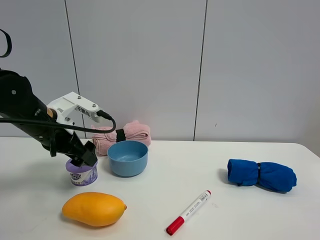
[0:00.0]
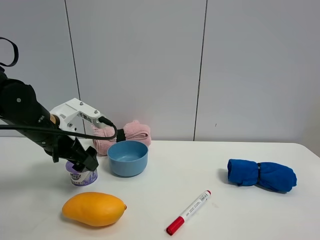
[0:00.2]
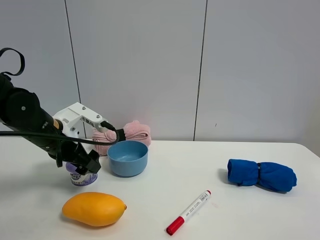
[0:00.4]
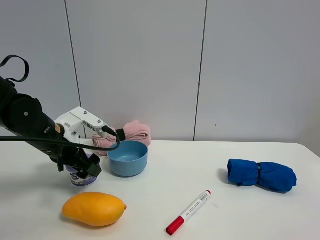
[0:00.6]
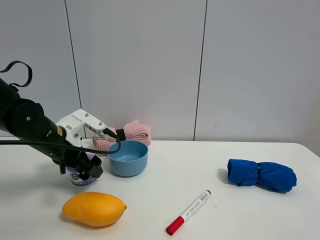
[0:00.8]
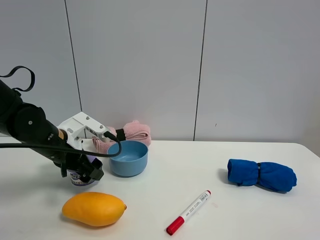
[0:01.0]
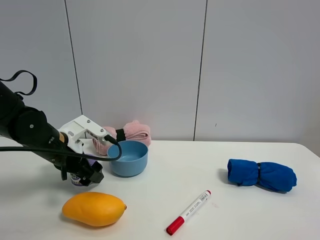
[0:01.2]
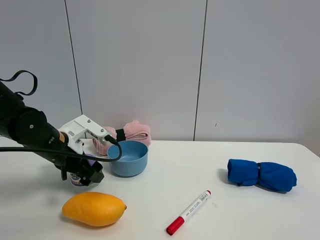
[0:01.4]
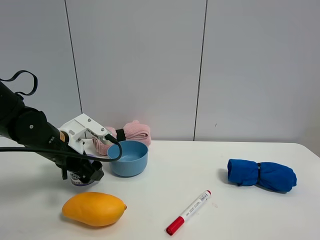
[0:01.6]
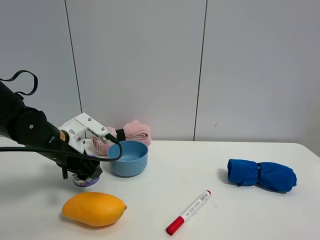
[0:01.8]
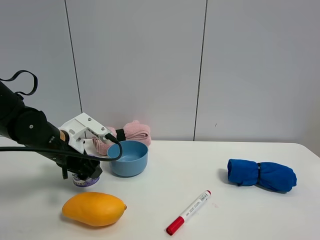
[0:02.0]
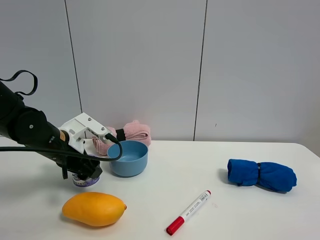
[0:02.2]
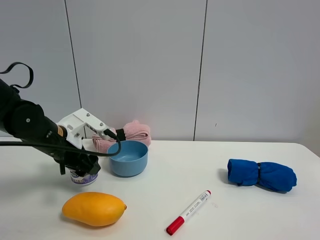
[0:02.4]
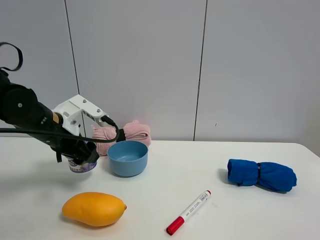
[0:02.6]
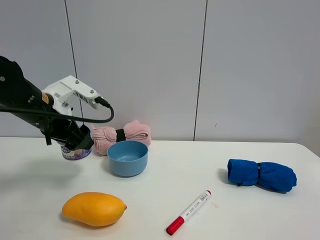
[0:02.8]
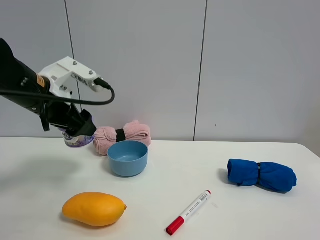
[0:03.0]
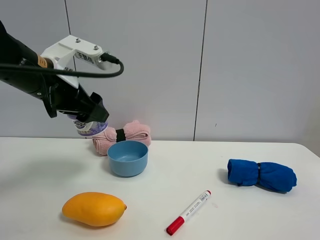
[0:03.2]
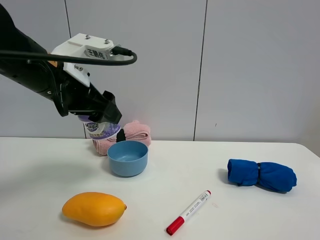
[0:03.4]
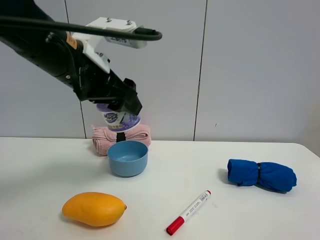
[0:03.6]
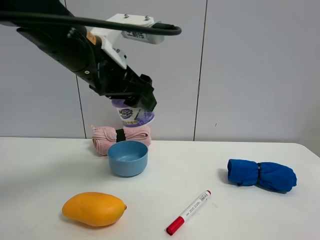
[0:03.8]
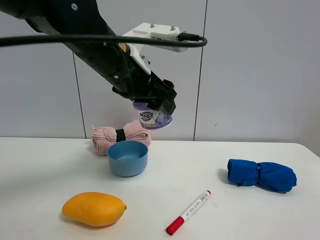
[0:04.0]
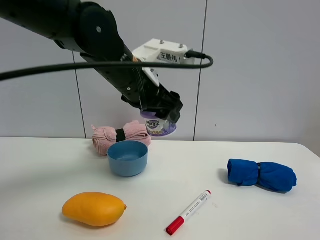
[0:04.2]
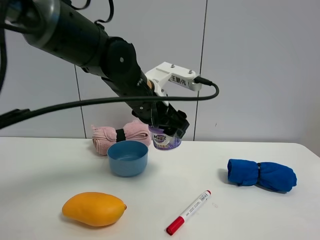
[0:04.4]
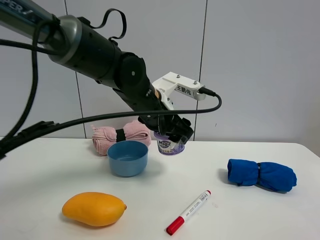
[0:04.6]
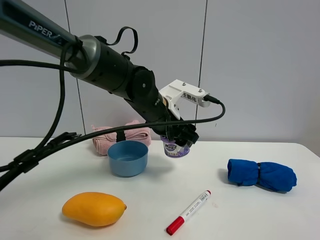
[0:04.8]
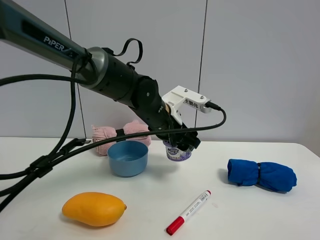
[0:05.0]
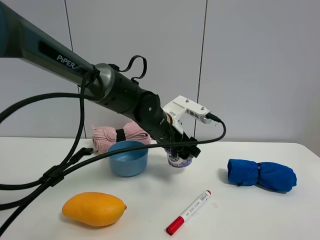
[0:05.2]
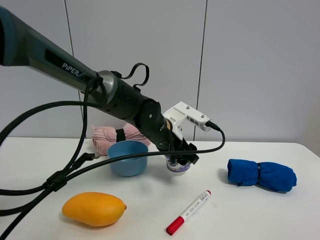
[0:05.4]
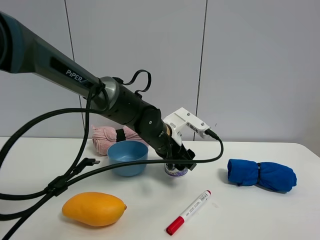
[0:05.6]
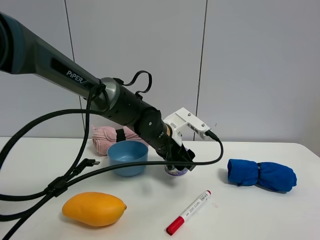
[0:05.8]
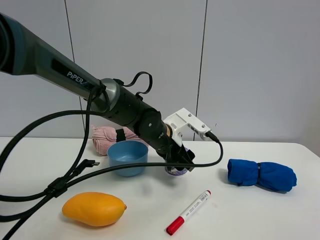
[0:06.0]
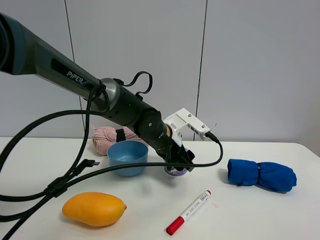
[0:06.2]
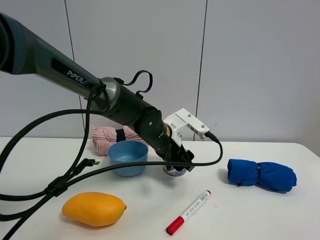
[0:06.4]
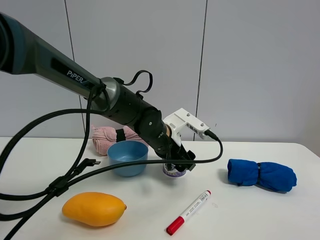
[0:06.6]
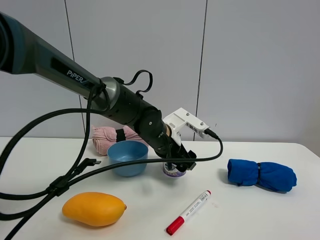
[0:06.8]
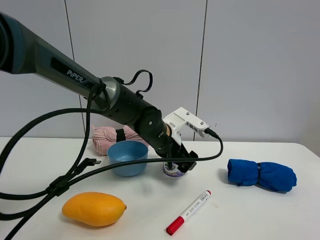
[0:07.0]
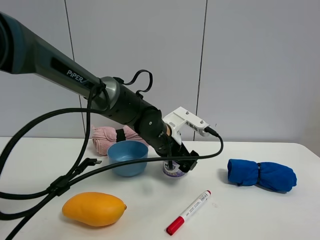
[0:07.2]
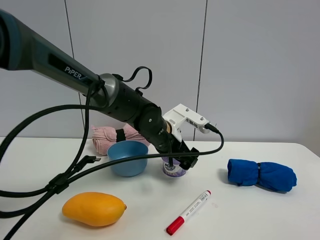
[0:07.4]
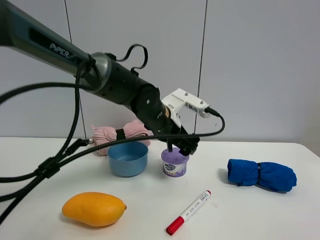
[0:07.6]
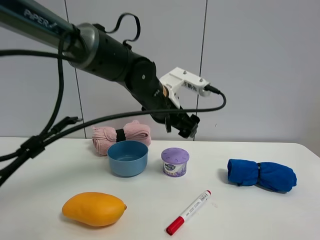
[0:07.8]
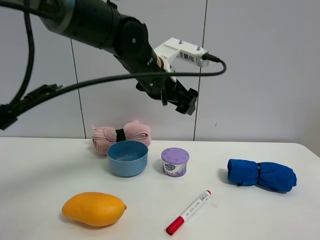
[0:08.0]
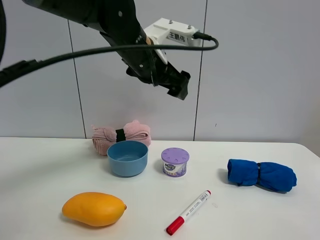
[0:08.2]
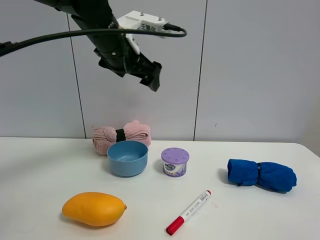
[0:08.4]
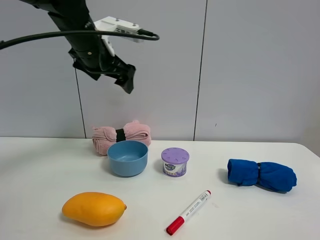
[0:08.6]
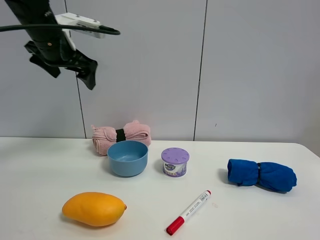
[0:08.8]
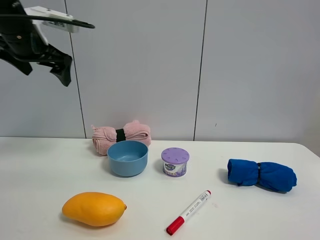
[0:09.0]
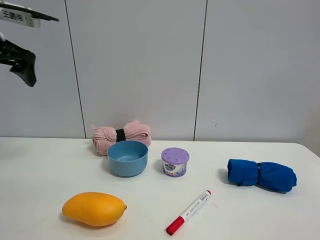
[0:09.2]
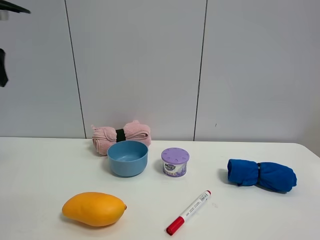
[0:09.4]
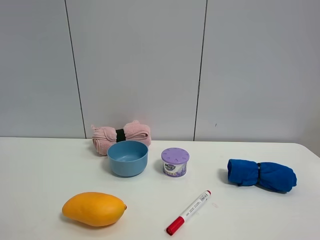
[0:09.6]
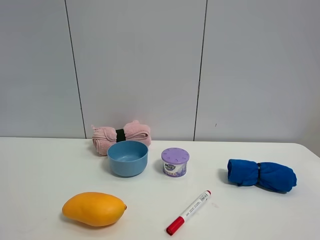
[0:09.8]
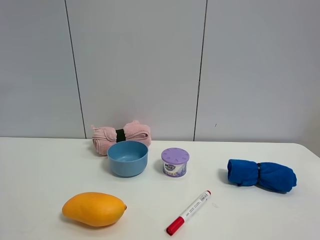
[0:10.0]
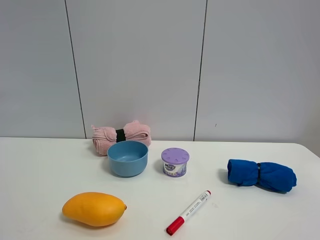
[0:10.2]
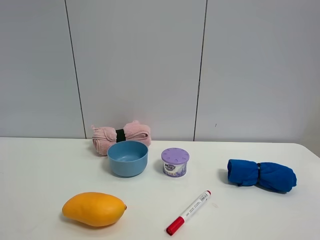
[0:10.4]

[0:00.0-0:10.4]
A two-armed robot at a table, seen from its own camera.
Task of the whole recording: the gripper move the object.
Step, 0:02.0 to 0:07.4: Place the Incense box on the table with the left gripper.
0:00.0 to 0:01.4: The left gripper moves downward, some 5 cm.
0:01.4 to 0:03.0: The left gripper goes approximately 10 cm upward, and closes its fingers.
0:03.0 to 0:04.4: The left gripper is displaced to the right by approximately 15 cm.
0:04.4 to 0:06.0: The left gripper goes about 10 cm downward.
0:06.0 to 0:07.4: The left gripper opens.
0:07.4 to 0:09.0: The left gripper is displaced to the left and upward by some 35 cm.
0:09.0 to 0:10.4: The left gripper goes some 35 cm backward.

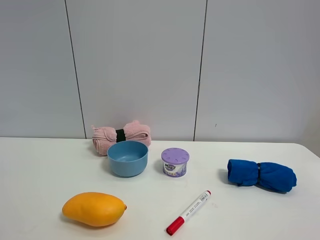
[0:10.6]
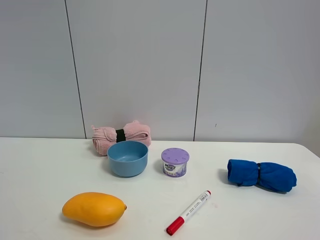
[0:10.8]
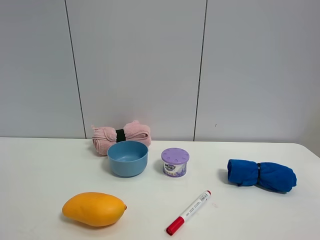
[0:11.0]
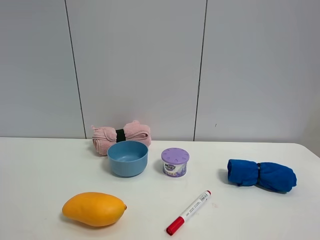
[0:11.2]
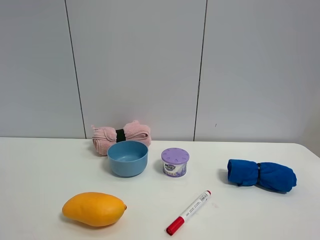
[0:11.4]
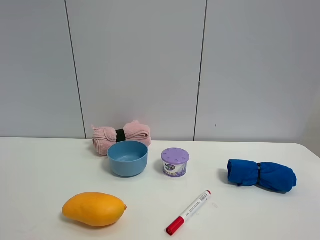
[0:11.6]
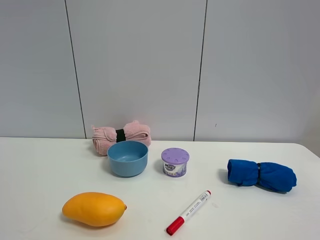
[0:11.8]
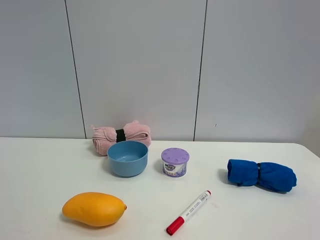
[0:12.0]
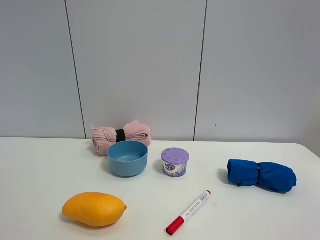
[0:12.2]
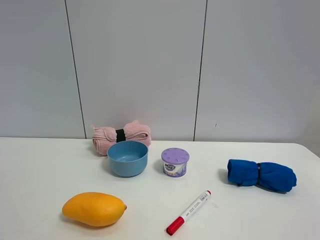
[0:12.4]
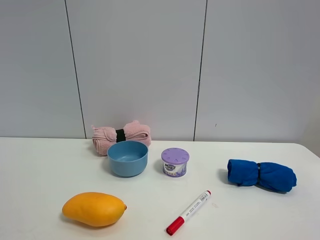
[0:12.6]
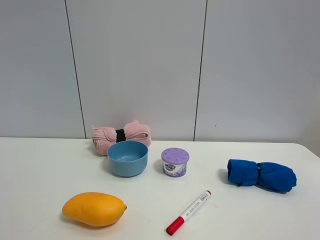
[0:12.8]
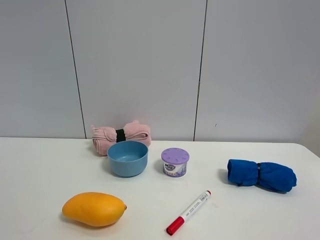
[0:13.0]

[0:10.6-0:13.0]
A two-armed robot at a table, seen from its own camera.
Task of the whole recording: the gripper move the object.
0:11.8 to 0:13.0: The two grippers keep their place.

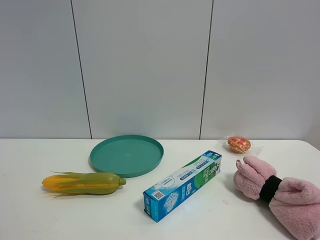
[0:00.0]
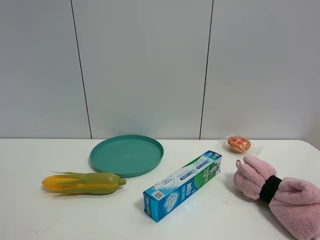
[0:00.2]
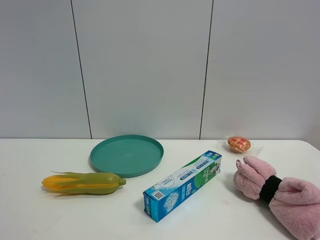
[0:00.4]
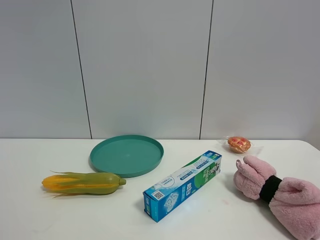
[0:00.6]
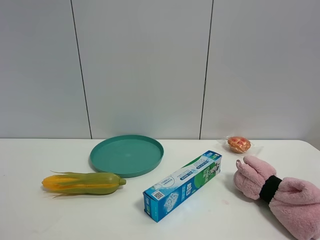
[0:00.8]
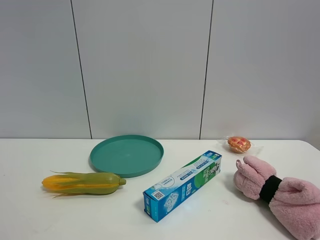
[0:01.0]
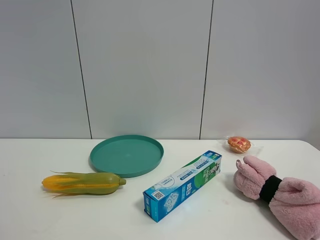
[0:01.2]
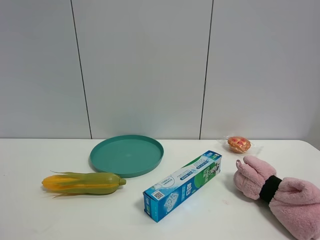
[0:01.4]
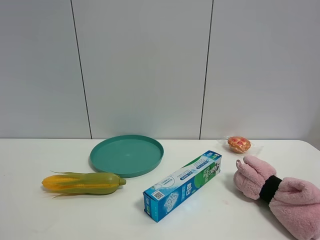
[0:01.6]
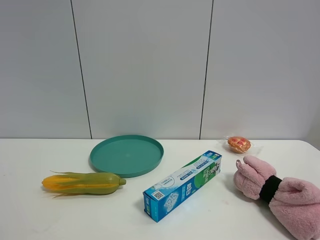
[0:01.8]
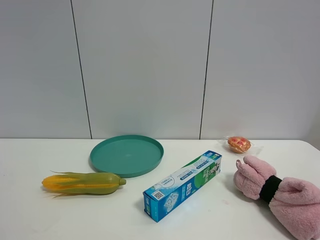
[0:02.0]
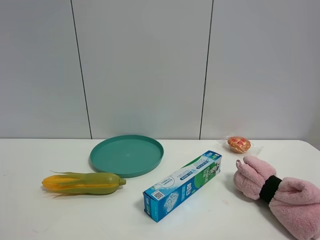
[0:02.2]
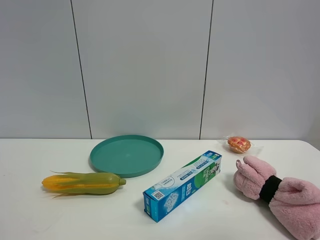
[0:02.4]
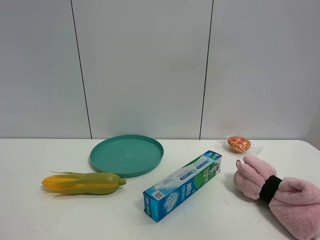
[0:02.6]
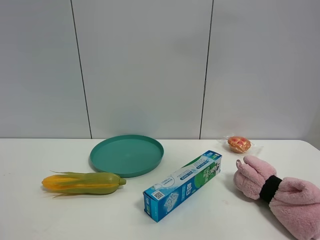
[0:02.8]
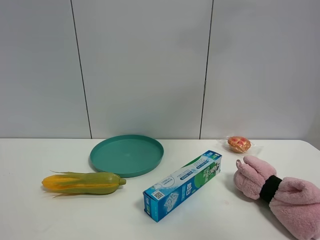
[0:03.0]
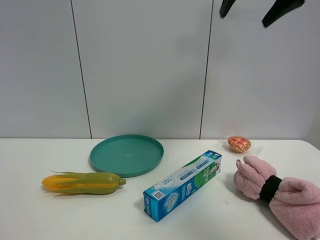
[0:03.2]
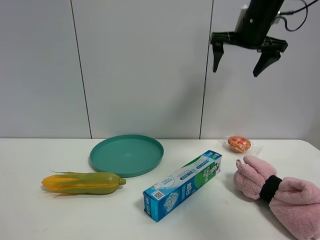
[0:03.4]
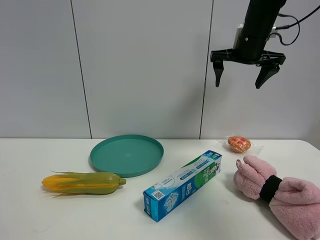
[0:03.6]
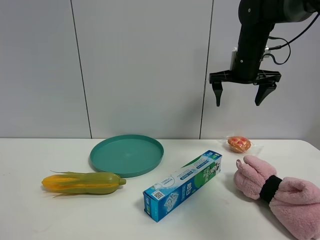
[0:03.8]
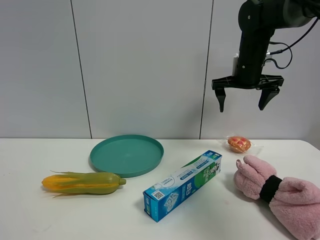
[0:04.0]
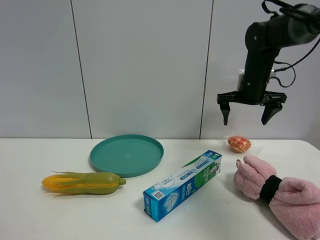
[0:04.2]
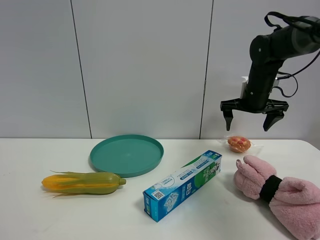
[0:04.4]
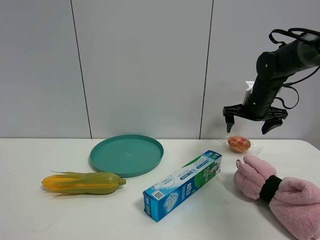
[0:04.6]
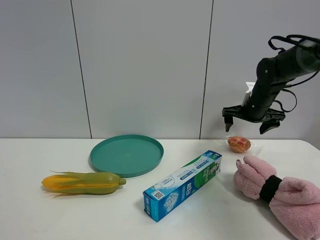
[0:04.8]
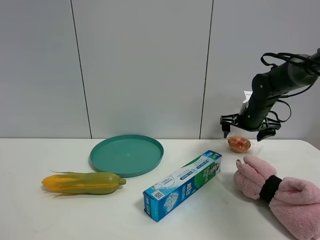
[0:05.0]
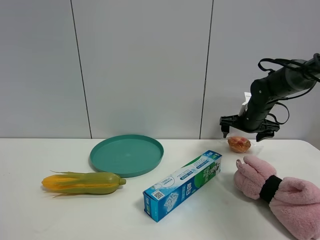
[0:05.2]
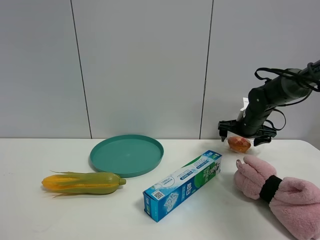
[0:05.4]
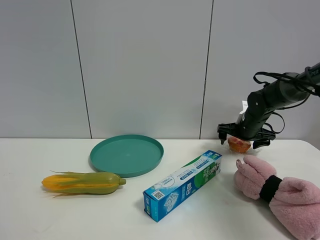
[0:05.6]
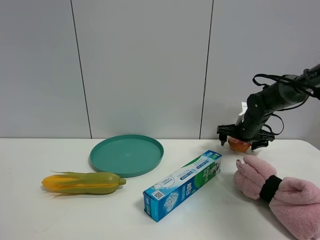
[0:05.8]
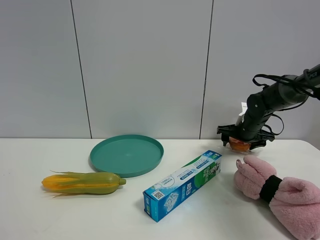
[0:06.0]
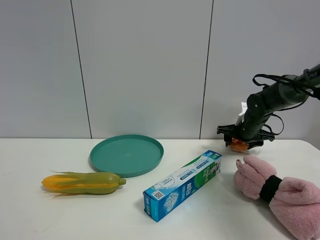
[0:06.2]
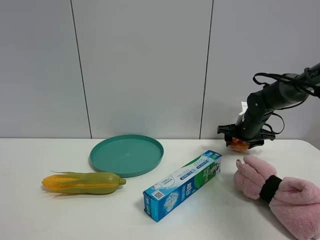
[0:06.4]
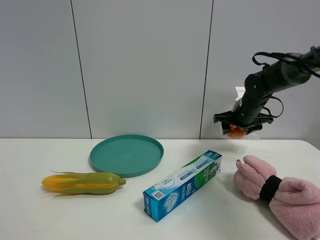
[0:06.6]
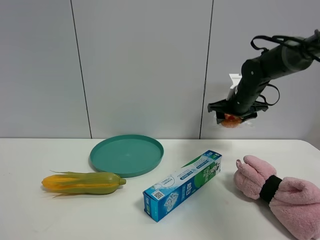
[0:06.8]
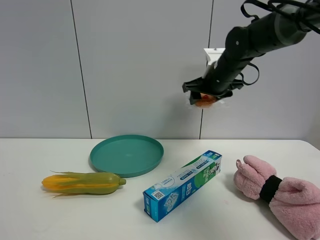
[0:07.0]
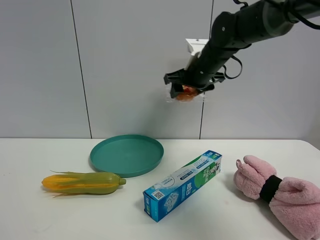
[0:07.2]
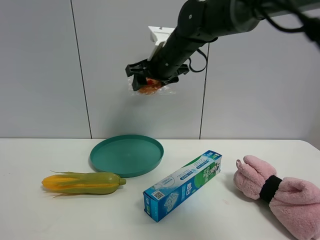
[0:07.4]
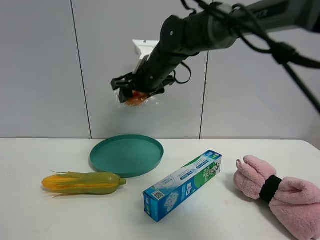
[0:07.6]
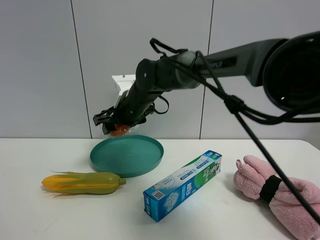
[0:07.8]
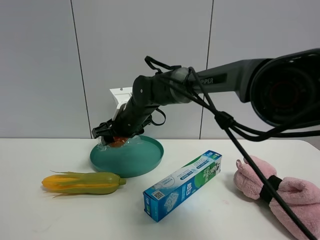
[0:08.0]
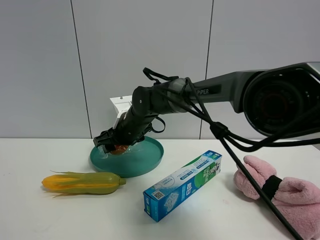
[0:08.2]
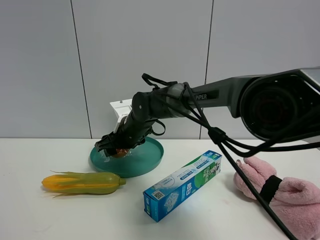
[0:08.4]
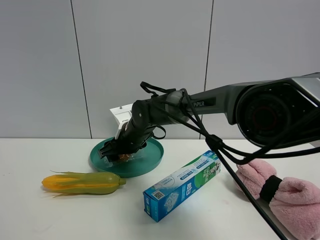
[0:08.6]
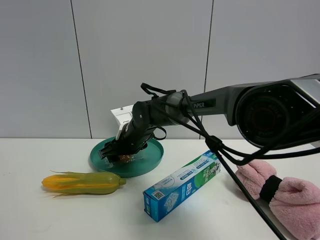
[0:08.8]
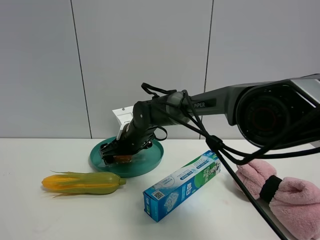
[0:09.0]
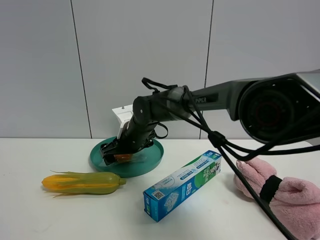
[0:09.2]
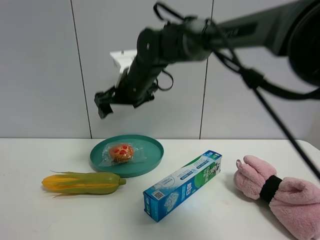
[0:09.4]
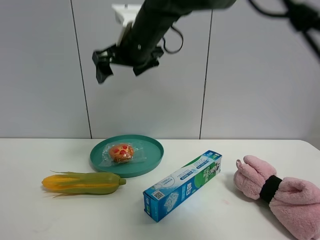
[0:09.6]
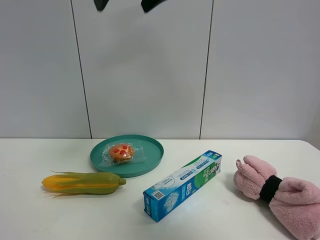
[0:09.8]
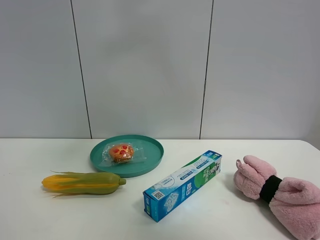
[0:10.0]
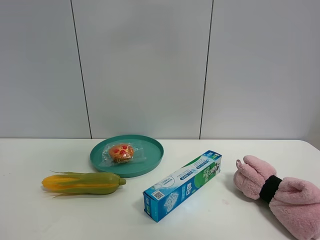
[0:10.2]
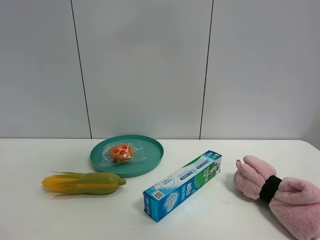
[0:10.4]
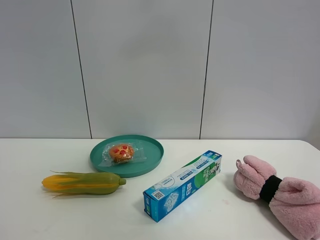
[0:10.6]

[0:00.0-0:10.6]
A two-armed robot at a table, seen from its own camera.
Task of the whole recording: the gripper move the object.
Step, 0:00.0 to 0:06.0: Grasp the egg tart with the right gripper.
Step, 0:06.2 to 0:09.2: Place the egg tart into the green bowl with the right gripper.
0:00.0 to 0:01.6: Both grippers stay about where they are.
0:01.6 to 0:03.0: The right gripper moves forward and upward, some 40 cm.
0:03.0 to 0:04.6: The right gripper shifts approximately 35 cm downward and forward.
0:04.6 to 0:06.0: The right gripper moves downward, approximately 10 cm, and closes its fingers.
0:06.0 to 0:07.6: The right gripper is displaced to the left and upward by about 30 cm, and closes its fingers.
0:07.6 to 0:09.0: The right gripper goes approximately 15 cm downward, and opens up.
0:09.0 to 0:10.6: The right gripper travels upward and backward by roughly 50 cm.
